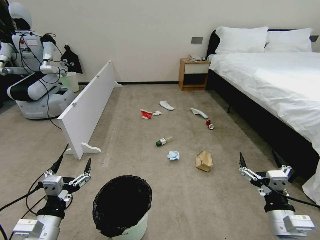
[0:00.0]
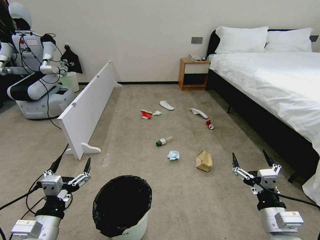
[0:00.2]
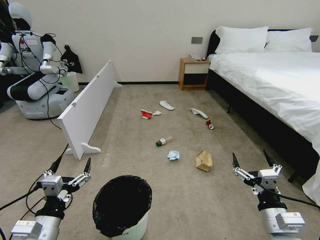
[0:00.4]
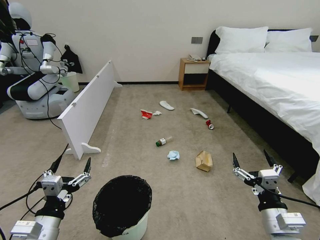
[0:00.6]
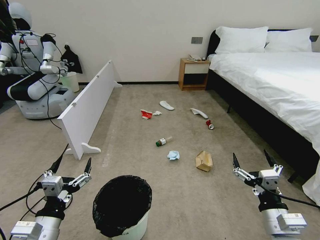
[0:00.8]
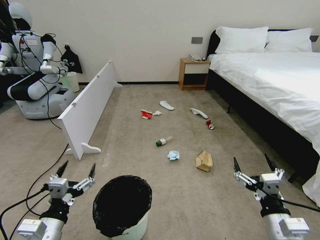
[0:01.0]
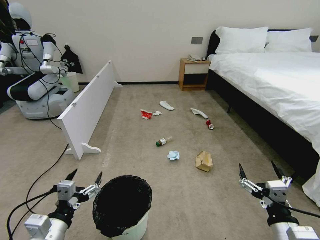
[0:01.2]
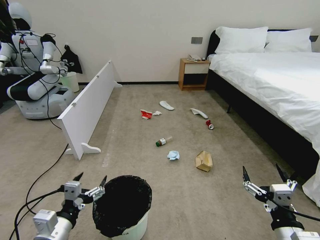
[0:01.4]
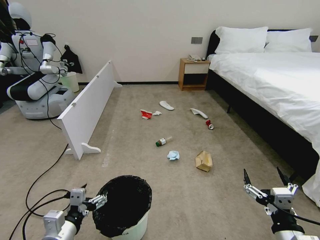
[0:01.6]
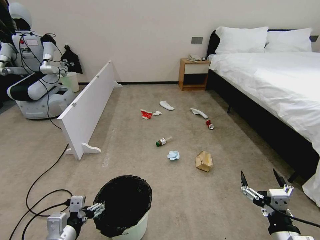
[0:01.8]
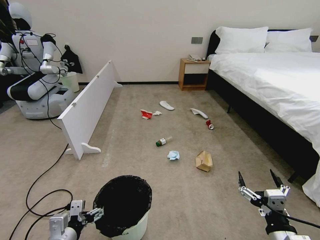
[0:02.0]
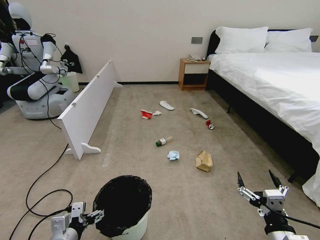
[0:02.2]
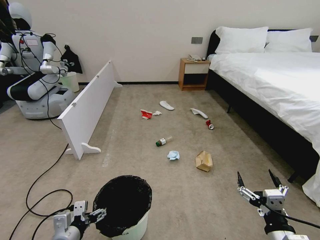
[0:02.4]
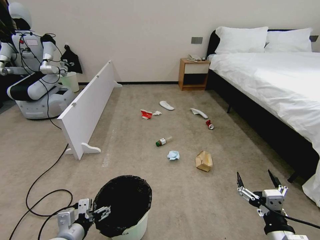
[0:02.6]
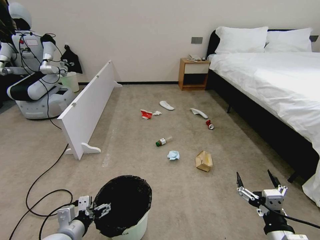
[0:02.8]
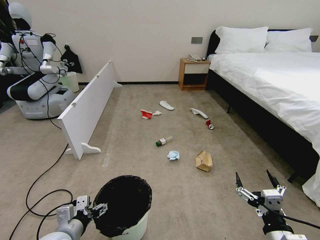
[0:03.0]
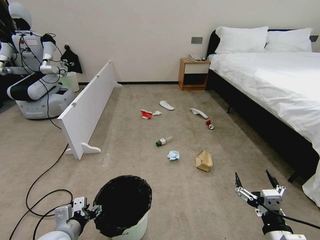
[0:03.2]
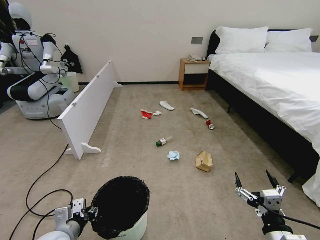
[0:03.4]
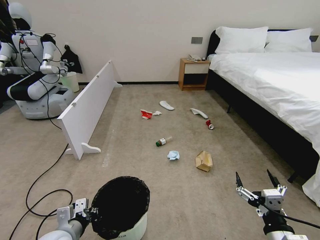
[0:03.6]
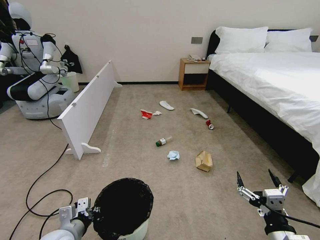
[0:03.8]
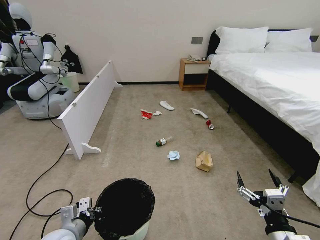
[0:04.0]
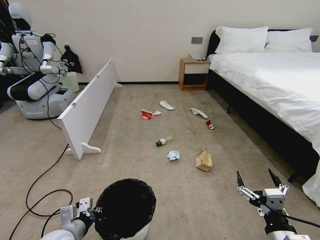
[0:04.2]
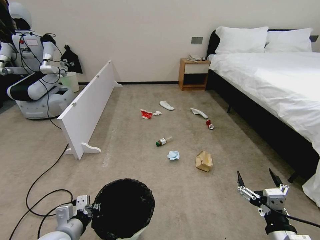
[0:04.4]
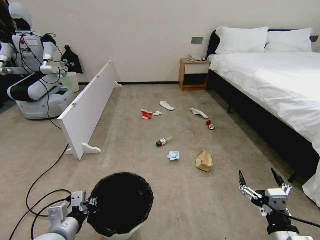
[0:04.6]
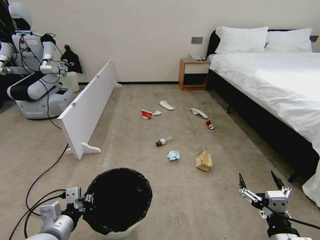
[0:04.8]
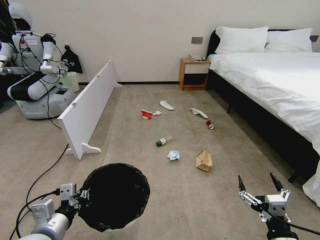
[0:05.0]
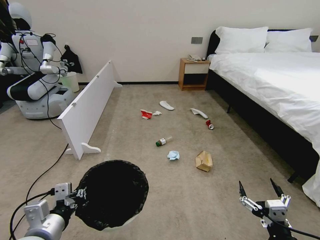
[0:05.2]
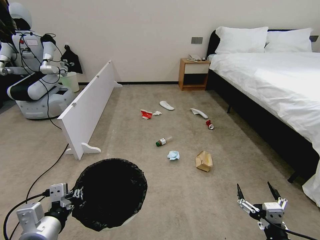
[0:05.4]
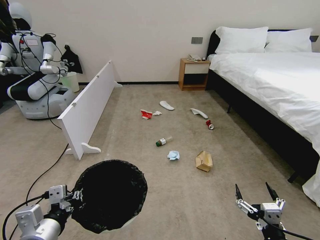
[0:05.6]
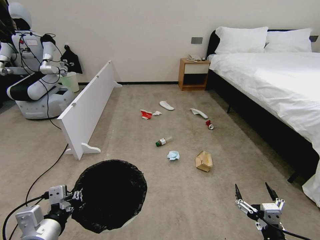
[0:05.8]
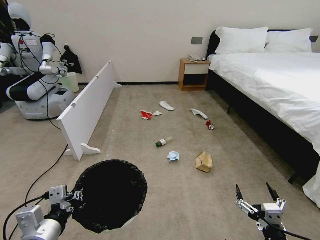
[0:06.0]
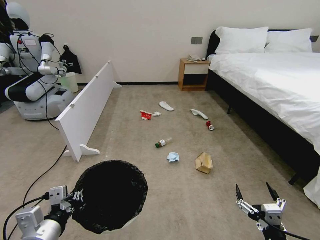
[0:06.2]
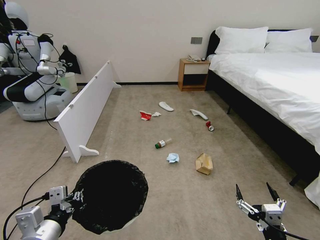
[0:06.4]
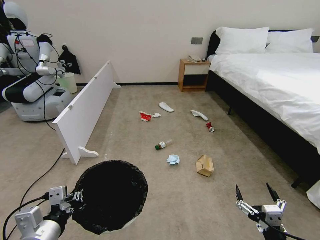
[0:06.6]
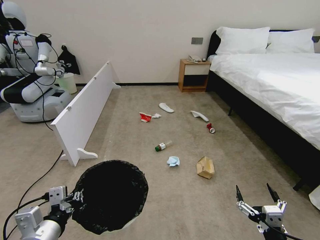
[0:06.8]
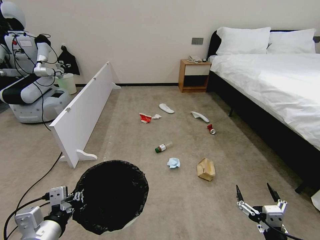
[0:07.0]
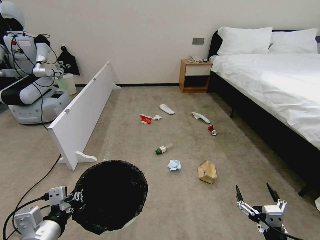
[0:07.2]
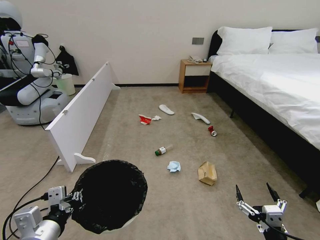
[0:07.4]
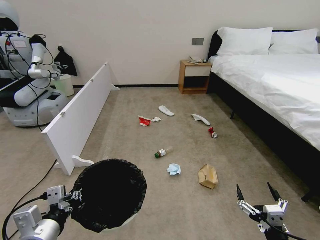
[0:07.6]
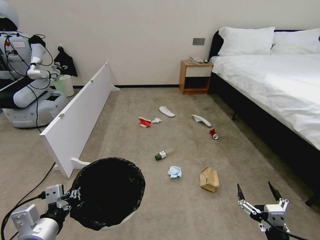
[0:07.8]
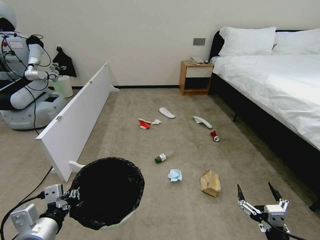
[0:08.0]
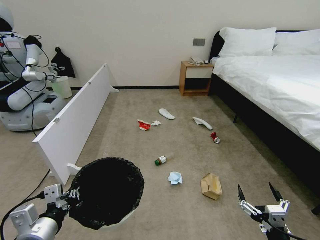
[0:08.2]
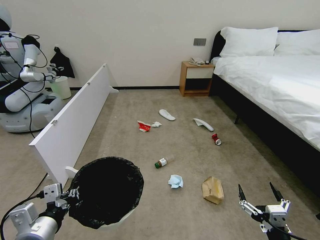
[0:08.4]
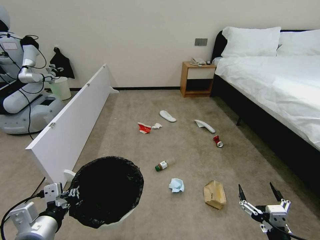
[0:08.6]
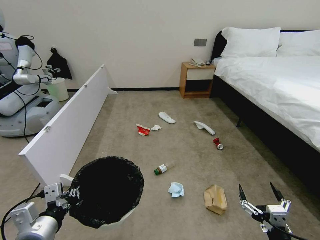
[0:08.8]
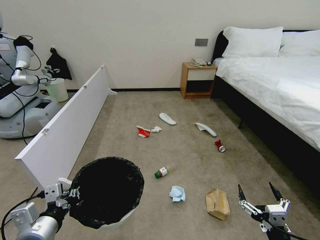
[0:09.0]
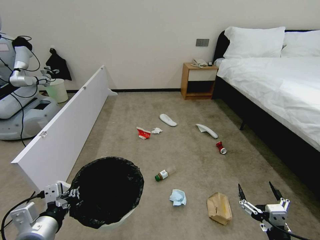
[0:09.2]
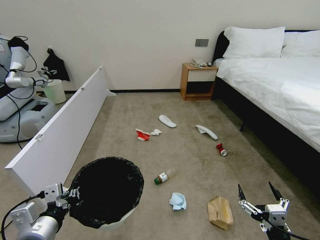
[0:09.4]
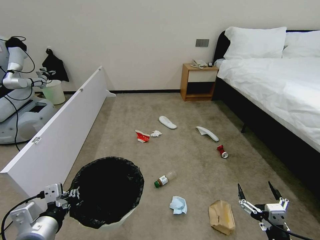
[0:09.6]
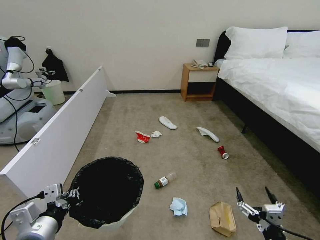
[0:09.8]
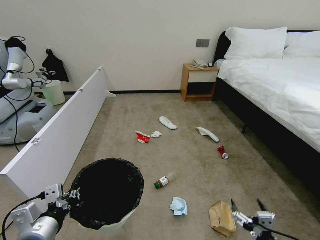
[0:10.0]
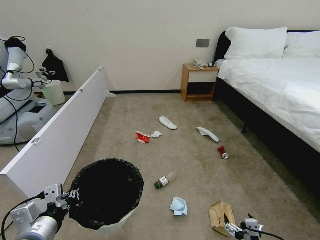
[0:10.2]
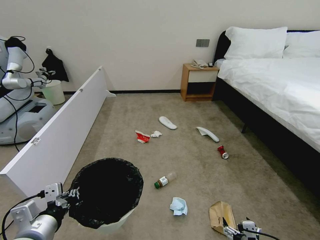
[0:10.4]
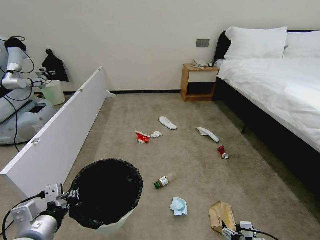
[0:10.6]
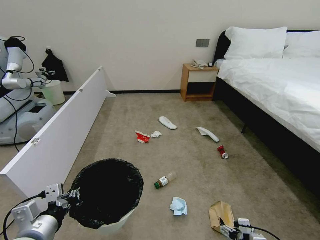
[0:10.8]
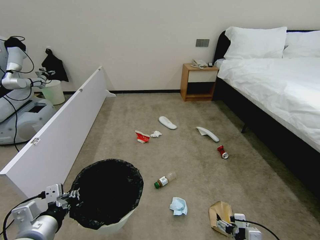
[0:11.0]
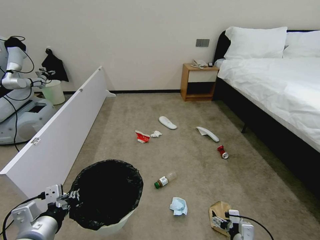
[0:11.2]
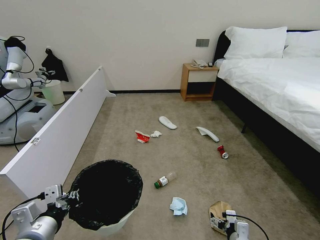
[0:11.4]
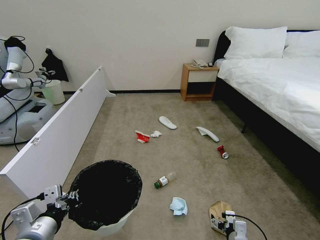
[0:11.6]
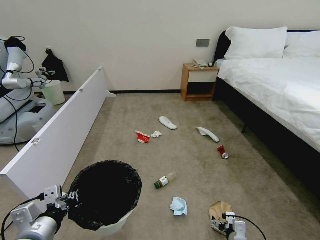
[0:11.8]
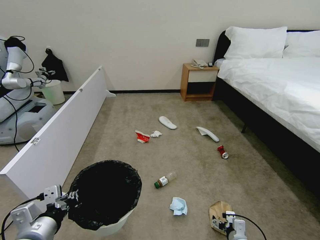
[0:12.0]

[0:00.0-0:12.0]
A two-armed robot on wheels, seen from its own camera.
Task of the whole recording: Pick up the trash bin, then pick up the garbage from the floor and place it into the trash bin.
0:03.0 to 0:04.4: The left gripper closes up.
0:04.4 to 0:06.0: The left gripper shifts approximately 10 cm upward and backward.
0:06.0 to 0:07.6: Neither gripper changes place.
0:09.0 to 0:10.4: The right gripper moves downward, approximately 5 cm.
0:10.4 to 0:12.0: The right gripper goes roughly 15 cm forward and downward.

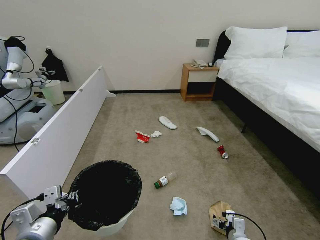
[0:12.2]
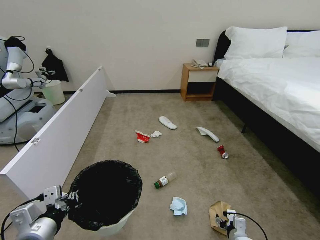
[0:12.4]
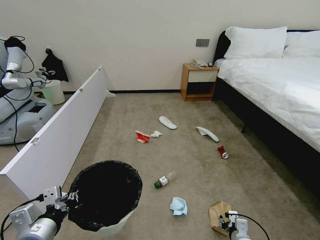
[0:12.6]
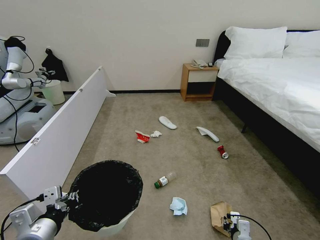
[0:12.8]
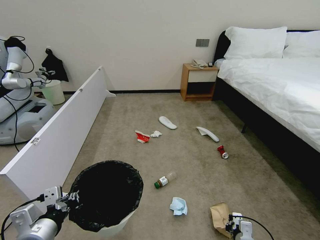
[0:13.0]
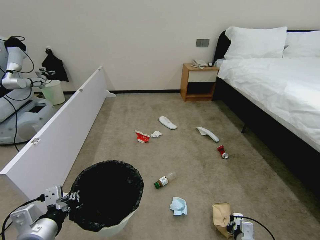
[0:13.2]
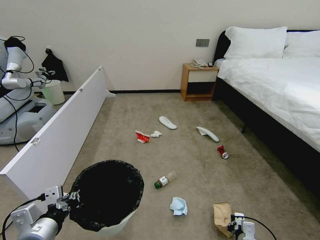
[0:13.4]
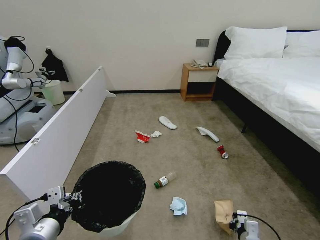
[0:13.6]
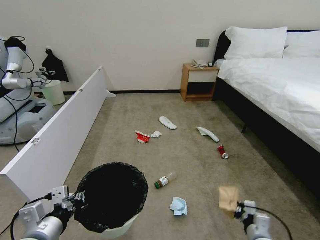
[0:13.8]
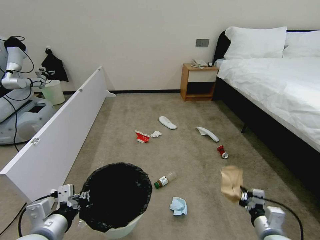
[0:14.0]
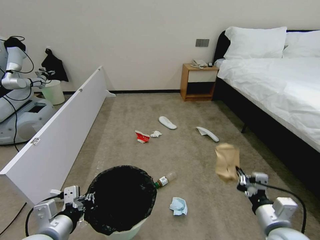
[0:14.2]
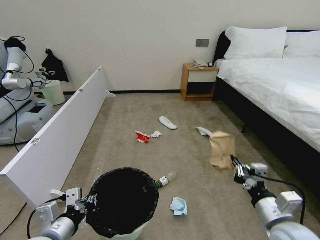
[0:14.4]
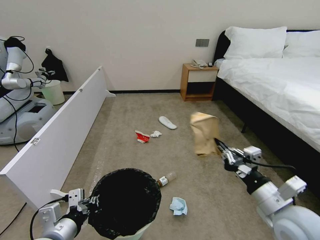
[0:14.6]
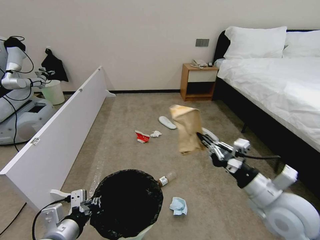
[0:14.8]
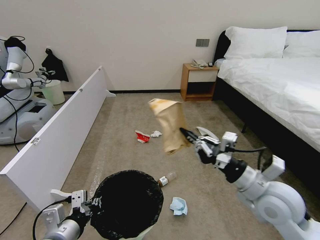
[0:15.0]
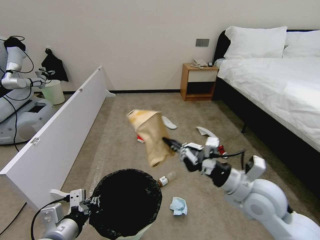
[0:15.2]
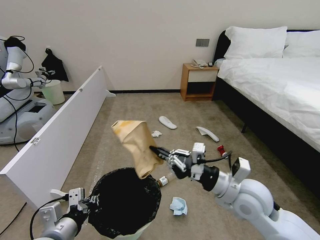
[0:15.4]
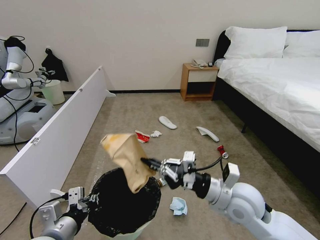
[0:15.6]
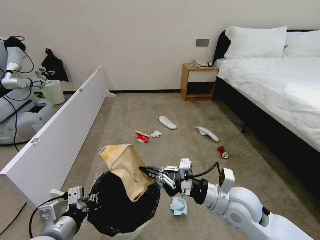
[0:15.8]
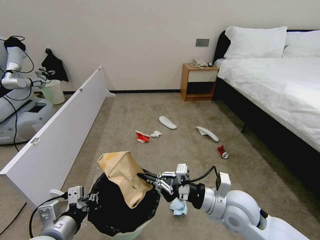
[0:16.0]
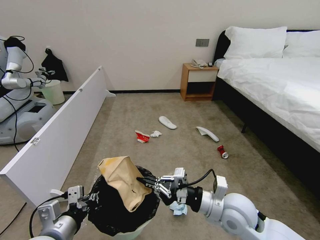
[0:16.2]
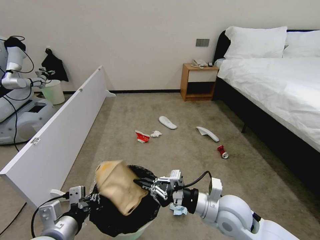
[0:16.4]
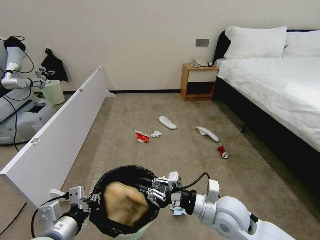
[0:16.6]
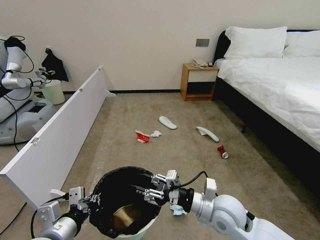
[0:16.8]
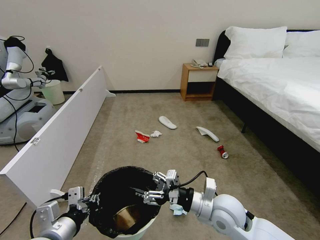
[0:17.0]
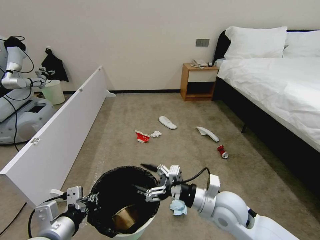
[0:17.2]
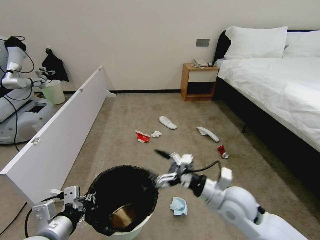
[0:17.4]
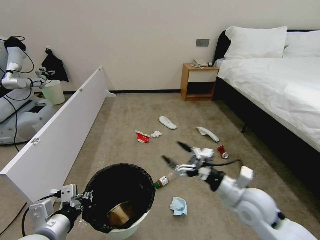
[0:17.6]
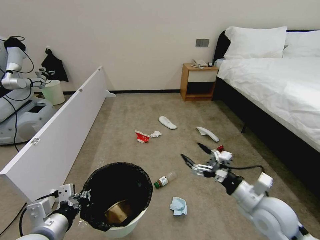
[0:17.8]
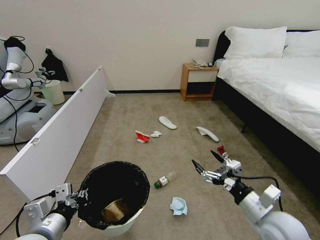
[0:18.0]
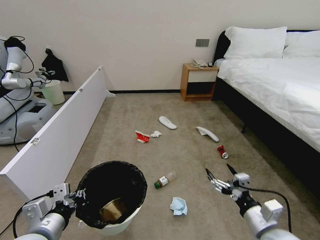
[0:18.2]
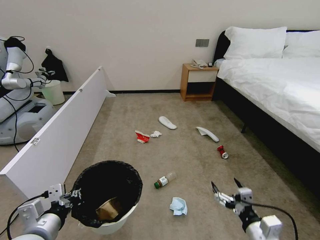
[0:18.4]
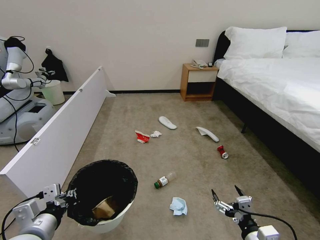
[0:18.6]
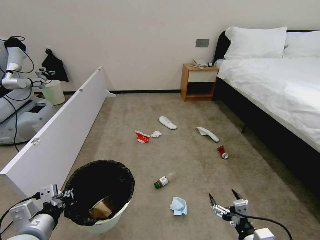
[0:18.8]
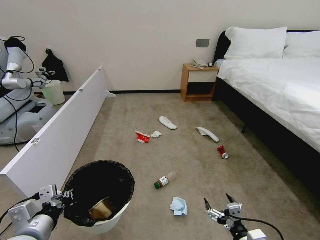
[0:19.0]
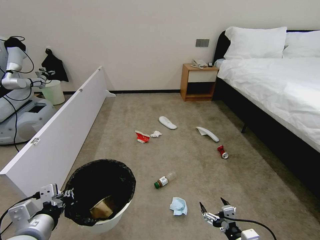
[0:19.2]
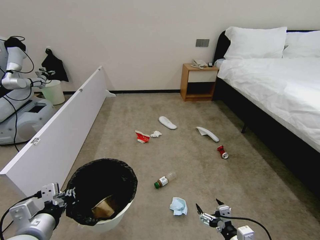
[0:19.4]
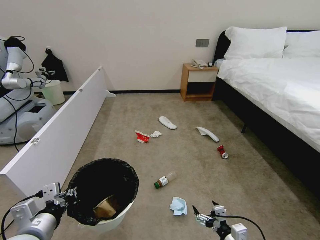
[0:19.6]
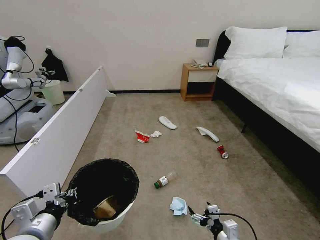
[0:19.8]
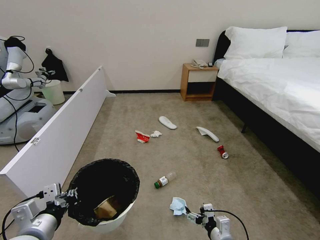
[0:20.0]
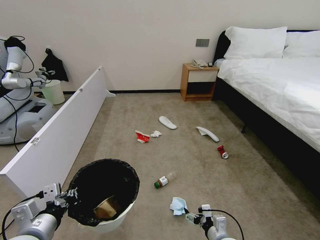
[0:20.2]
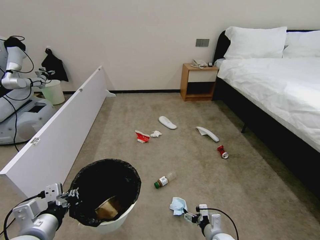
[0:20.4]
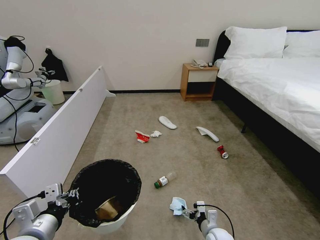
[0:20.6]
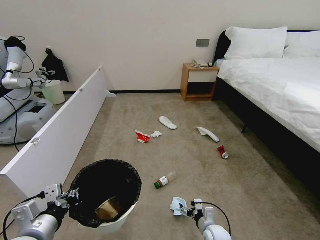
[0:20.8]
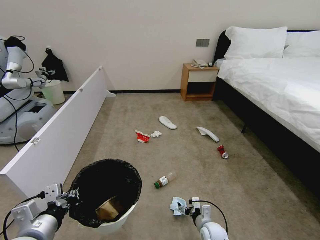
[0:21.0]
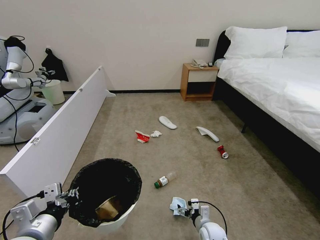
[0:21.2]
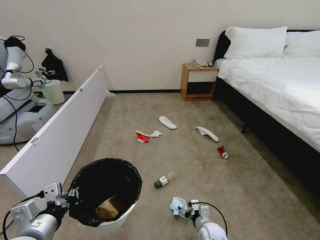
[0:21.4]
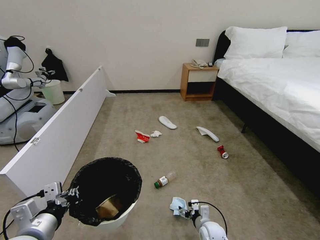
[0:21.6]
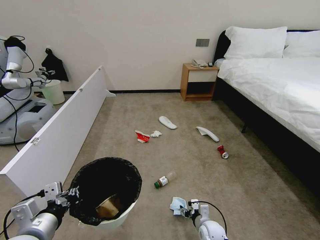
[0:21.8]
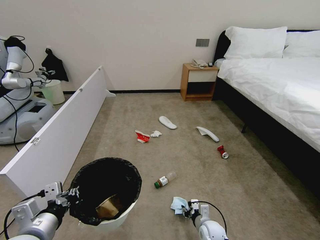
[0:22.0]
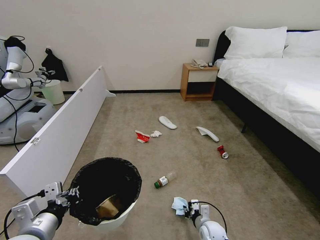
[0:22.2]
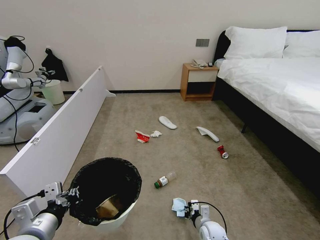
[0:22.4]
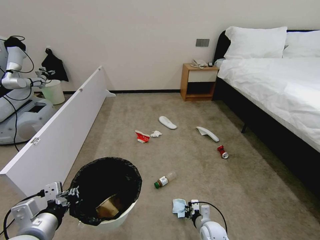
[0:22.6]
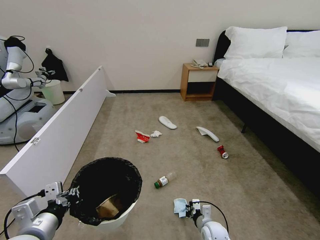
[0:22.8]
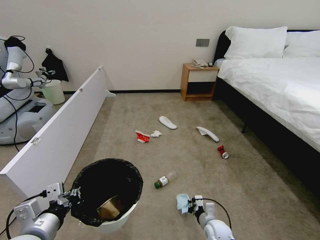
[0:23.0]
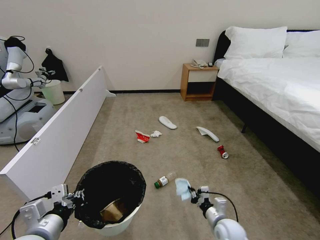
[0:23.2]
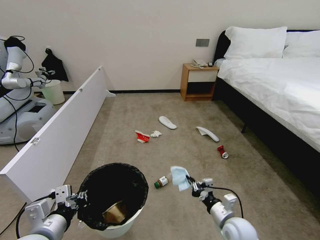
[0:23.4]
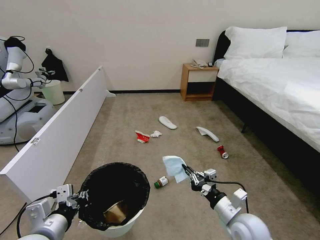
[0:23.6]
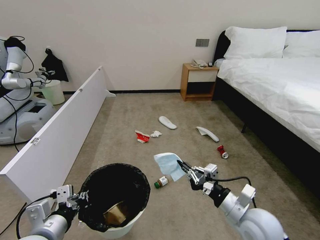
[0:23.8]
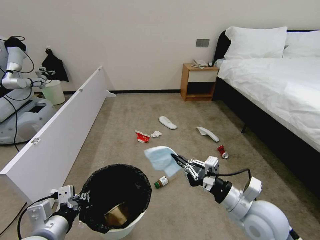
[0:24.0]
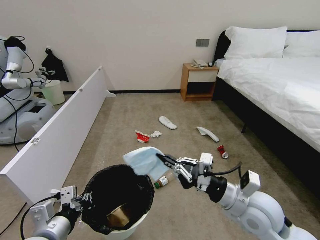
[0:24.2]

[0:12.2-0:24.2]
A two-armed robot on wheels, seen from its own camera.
Task of the whole recording: Pick up the trash bin, then pick up the garbage from the floor and place it into the trash bin.
0:12.2 to 0:13.8: The right gripper heads upward, covering roughly 10 cm, and closes its fingers.
0:13.8 to 0:15.2: The right gripper heads upward, covering roughly 25 cm.
0:15.2 to 0:16.6: The right gripper is displaced downward and to the left by approximately 10 cm.
0:16.6 to 0:18.2: The right gripper travels to the right and backward by about 15 cm, and opens up.
0:18.2 to 0:19.8: The right gripper shifts roughly 15 cm downward.
0:19.8 to 0:21.2: The right gripper moves forward and downward, roughly 15 cm.
0:21.2 to 0:22.6: The right gripper closes its fingers.
0:22.6 to 0:24.2: The right gripper heads upward, covering approximately 30 cm.
